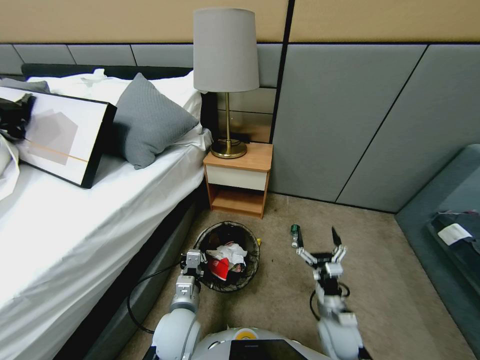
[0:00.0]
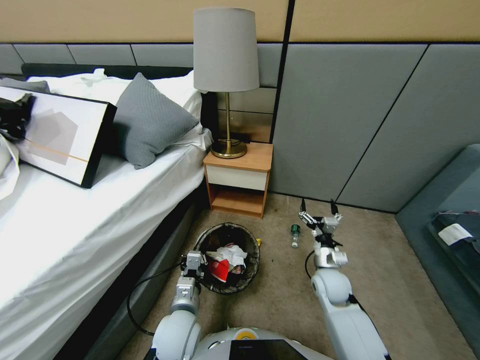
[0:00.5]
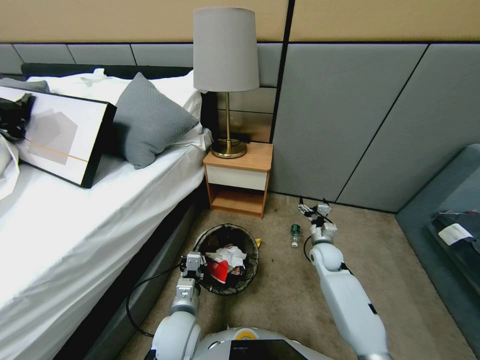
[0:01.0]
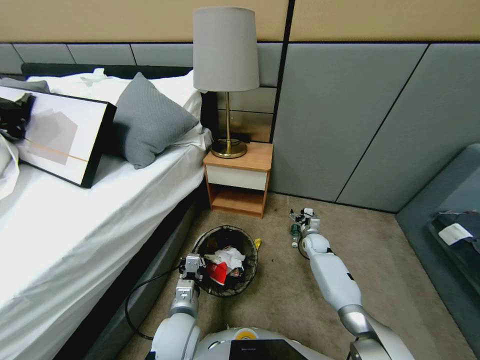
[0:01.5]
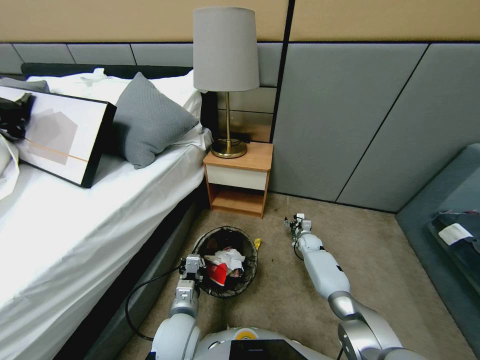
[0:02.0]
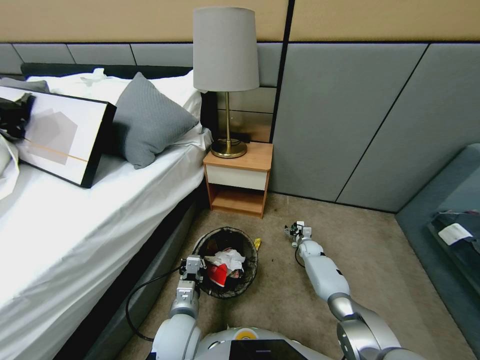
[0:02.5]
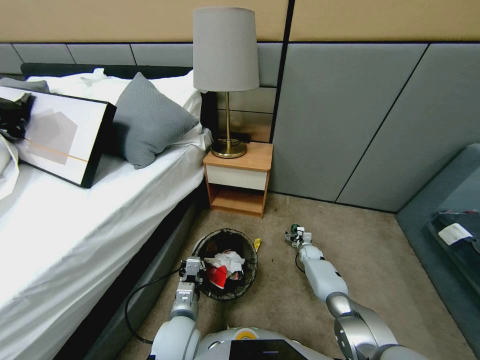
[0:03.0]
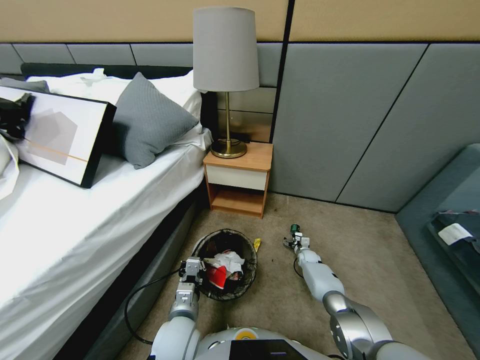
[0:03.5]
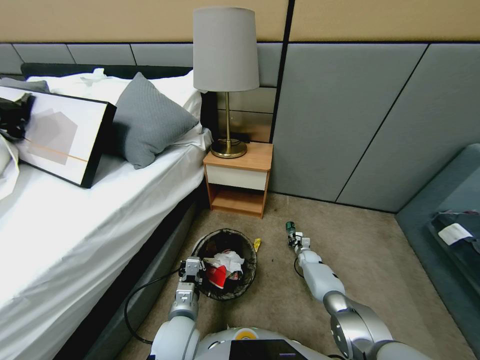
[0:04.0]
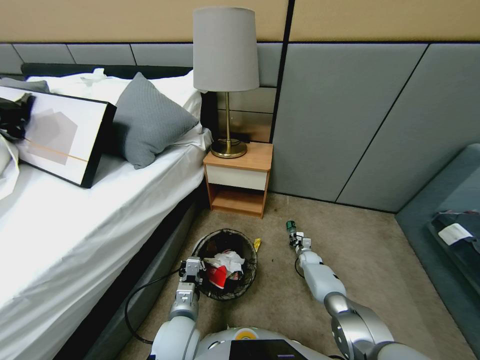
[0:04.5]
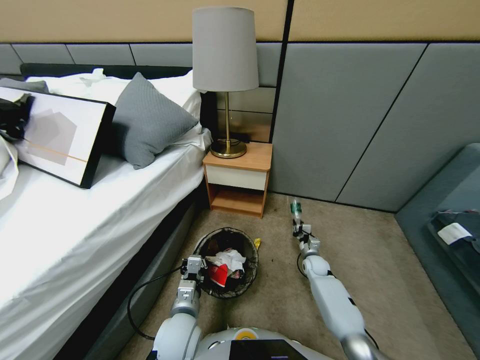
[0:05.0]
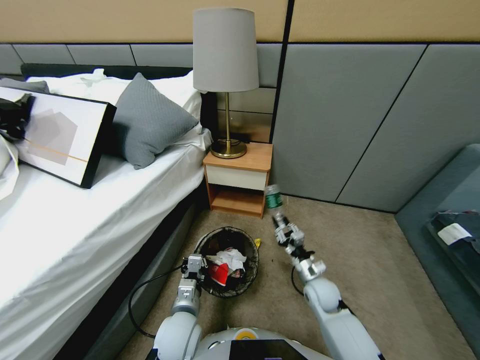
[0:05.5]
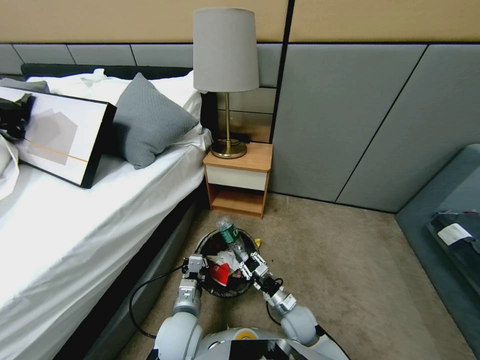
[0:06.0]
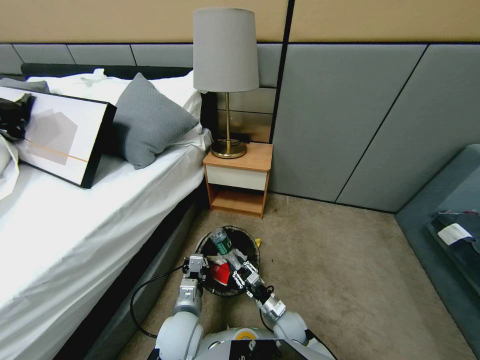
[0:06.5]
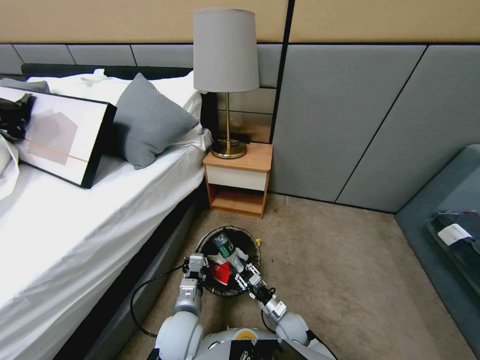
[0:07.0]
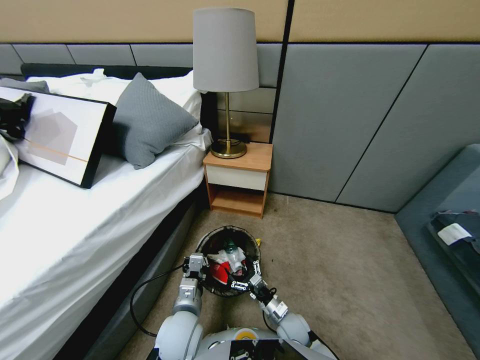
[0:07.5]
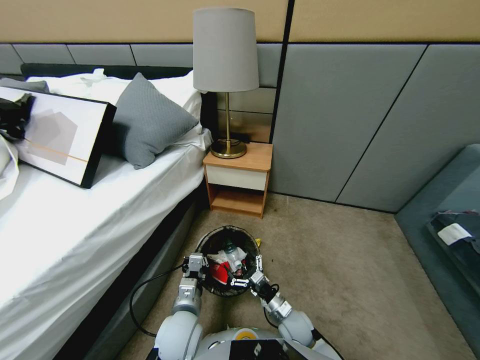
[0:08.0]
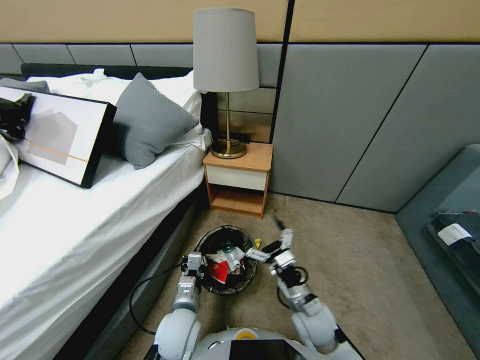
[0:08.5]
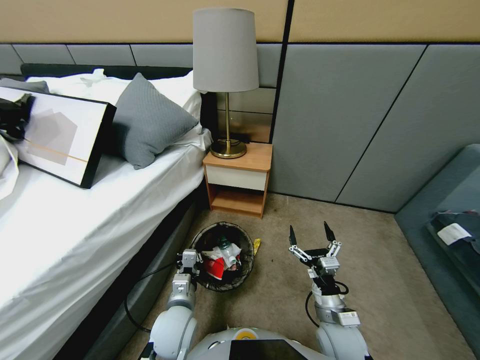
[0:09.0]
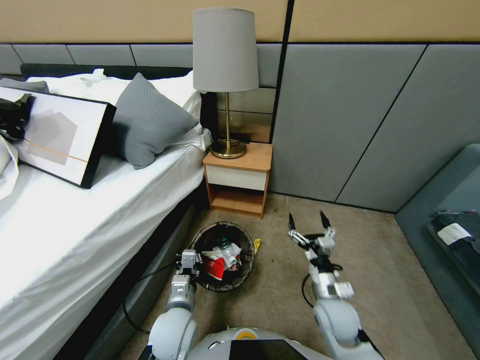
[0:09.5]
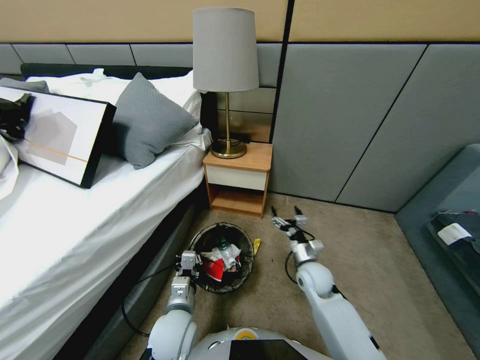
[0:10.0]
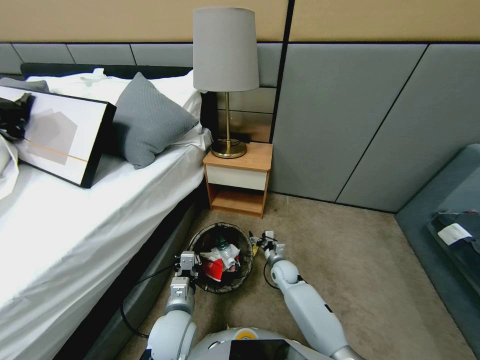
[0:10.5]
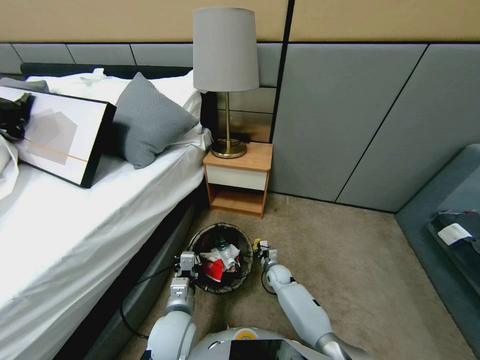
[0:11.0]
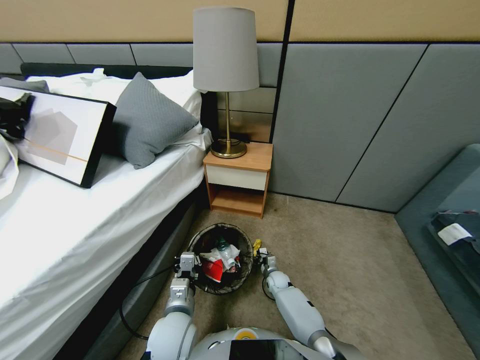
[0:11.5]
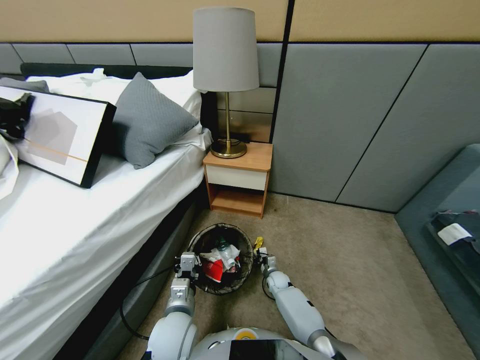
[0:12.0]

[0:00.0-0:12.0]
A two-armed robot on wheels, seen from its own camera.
Task of the whole recording: Pick up the trash bin, then pick up the garbage from the floor and place it into the trash bin.
0:00.0 to 0:02.0: The right gripper moves forward, about 30 cm.
0:02.0 to 0:04.0: The right gripper goes some 10 cm downward, and closes its fingers.
0:04.0 to 0:06.0: The right gripper heads backward, to the left and upward, covering roughly 35 cm.
0:06.0 to 0:08.0: The right gripper opens.
0:08.0 to 0:10.0: The right gripper heads forward, covering some 15 cm.
0:10.0 to 0:12.0: The right gripper is displaced downward by approximately 20 cm, and closes its fingers.

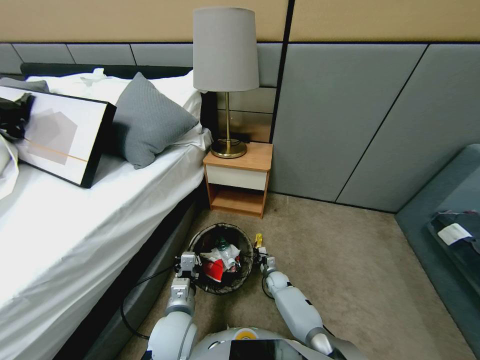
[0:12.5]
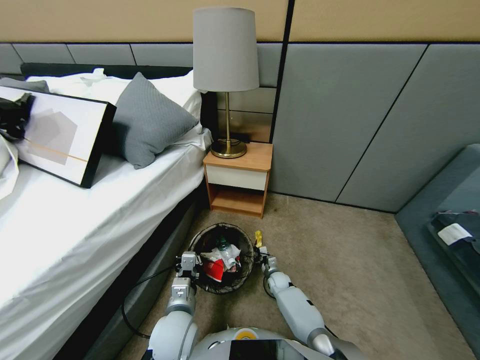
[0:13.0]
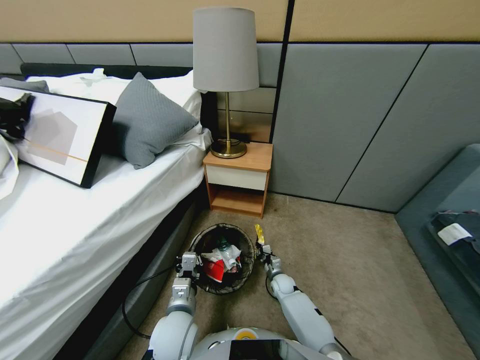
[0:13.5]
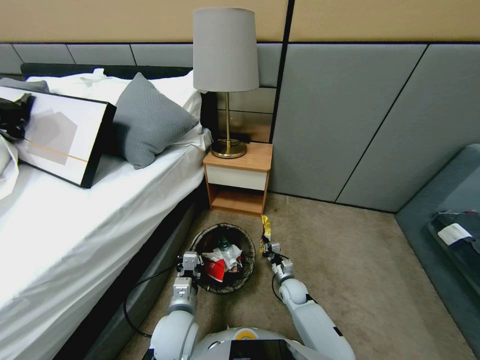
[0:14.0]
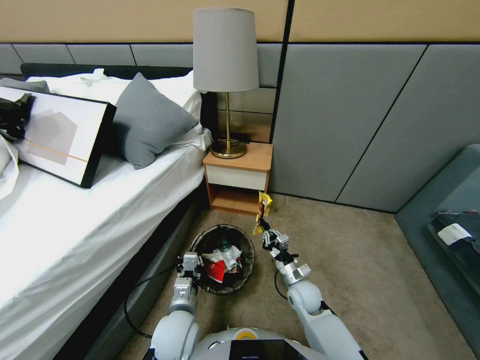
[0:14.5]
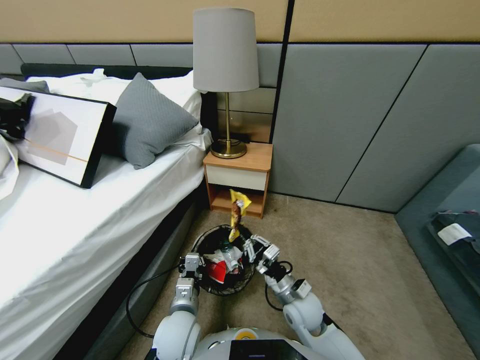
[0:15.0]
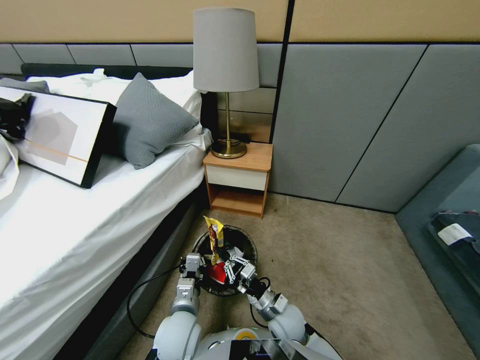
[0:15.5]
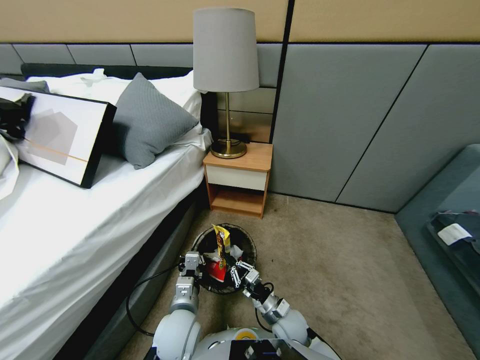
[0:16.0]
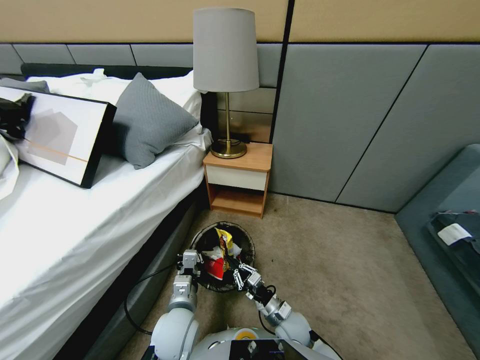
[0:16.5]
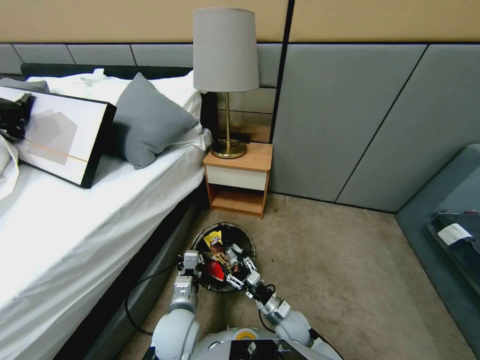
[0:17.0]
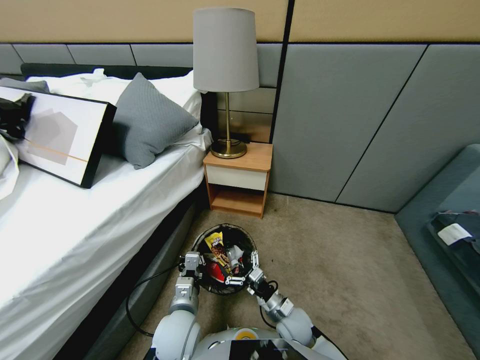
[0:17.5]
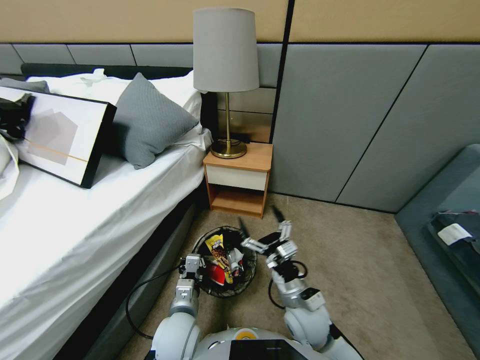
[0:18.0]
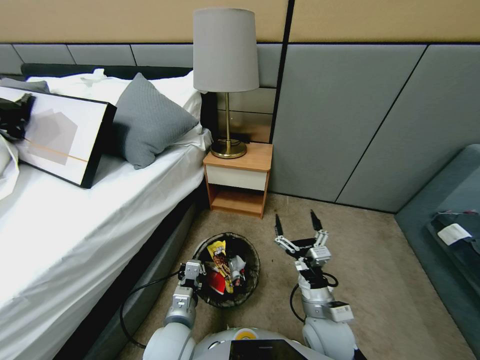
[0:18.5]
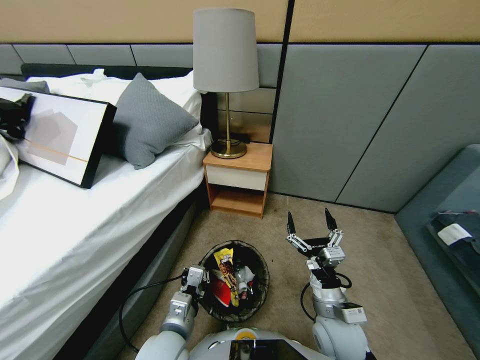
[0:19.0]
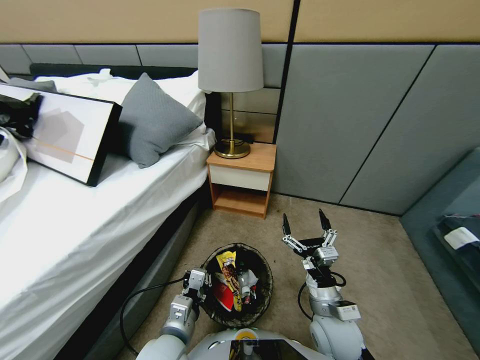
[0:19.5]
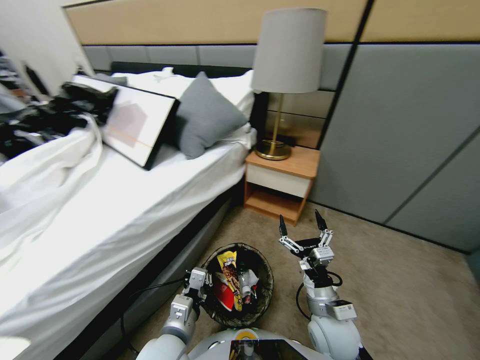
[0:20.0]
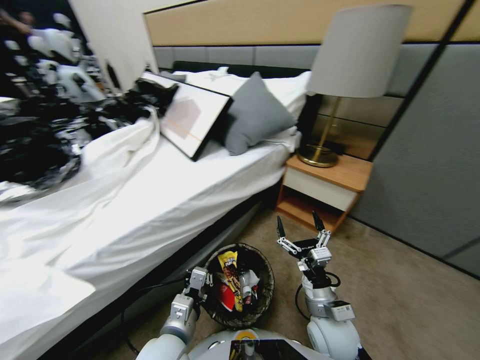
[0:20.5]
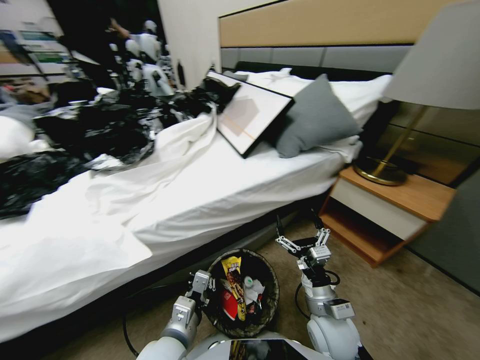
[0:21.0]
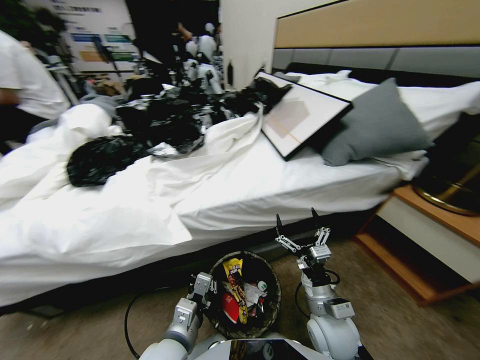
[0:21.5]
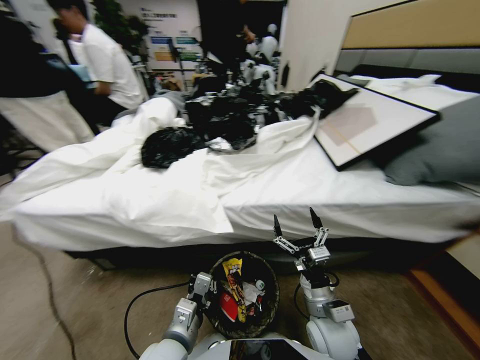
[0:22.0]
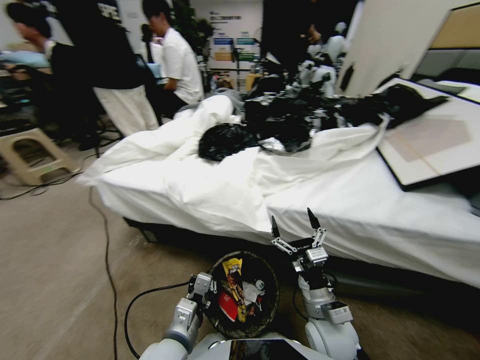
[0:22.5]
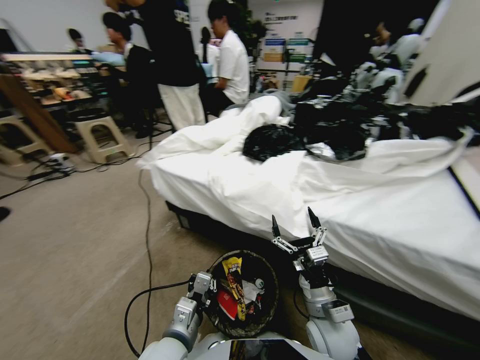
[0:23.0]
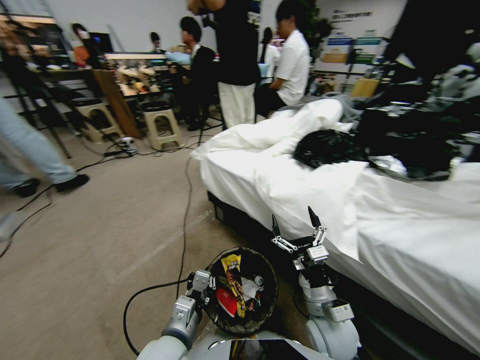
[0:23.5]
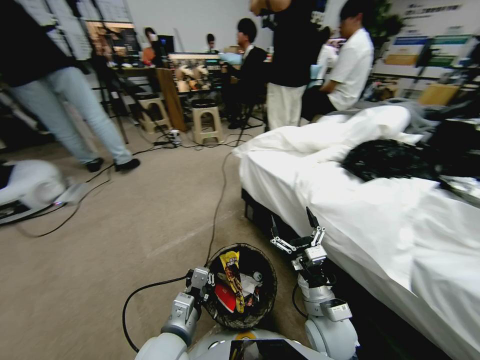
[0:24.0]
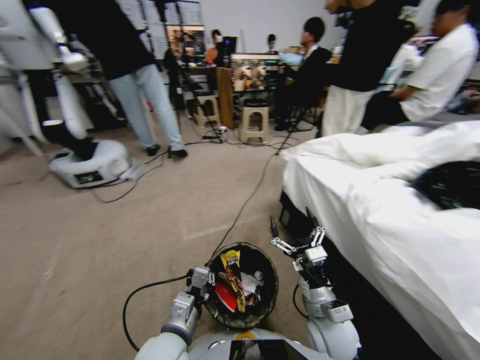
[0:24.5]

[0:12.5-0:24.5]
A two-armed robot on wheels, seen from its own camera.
Task of the whole recording: Pick up the trash bin, then pick up the garbage from the floor and place it into the trash bin.
0:12.5 to 0:14.5: The right gripper heads upward and backward, covering about 20 cm.
0:14.5 to 0:16.5: The right gripper goes roughly 10 cm backward and downward.
0:16.5 to 0:18.5: The right gripper shifts approximately 15 cm upward, and opens up.

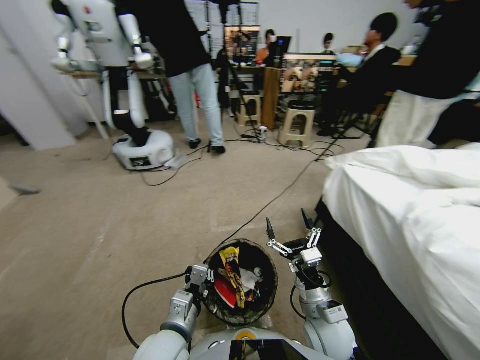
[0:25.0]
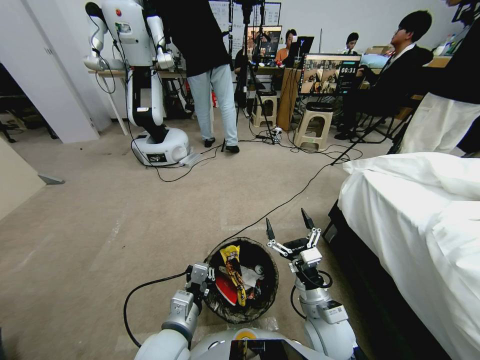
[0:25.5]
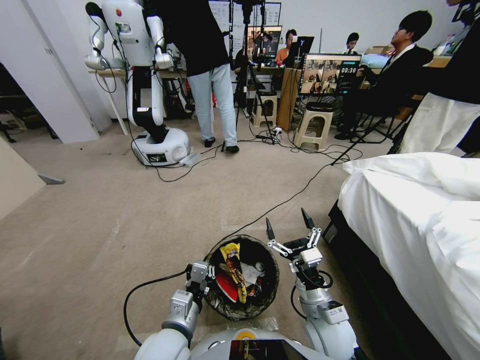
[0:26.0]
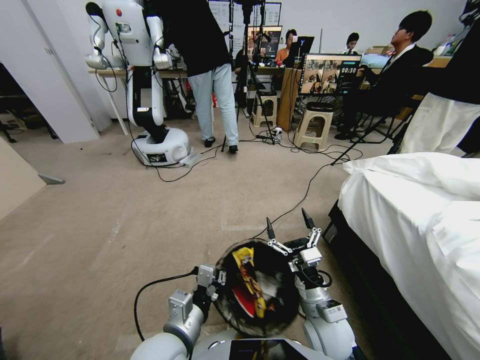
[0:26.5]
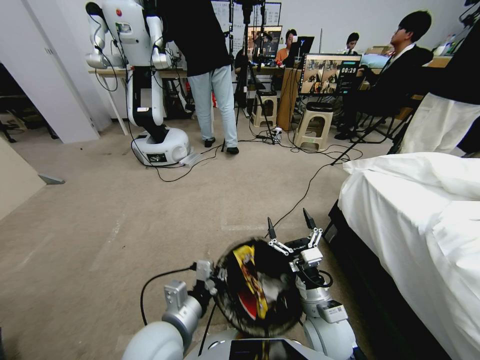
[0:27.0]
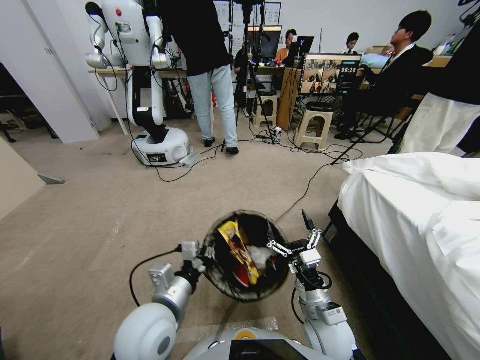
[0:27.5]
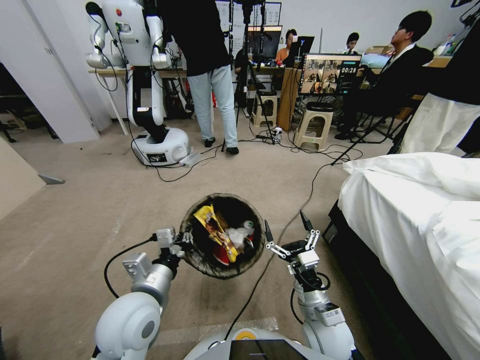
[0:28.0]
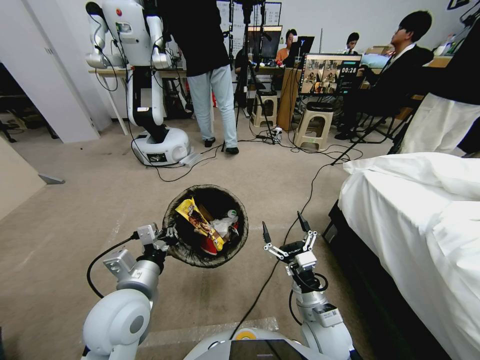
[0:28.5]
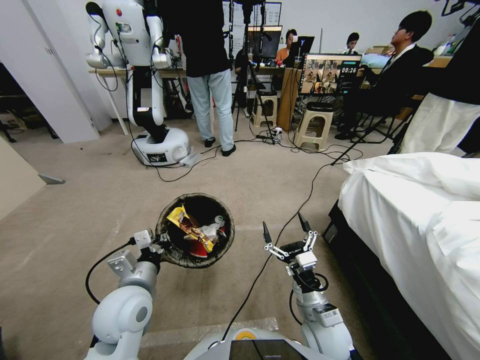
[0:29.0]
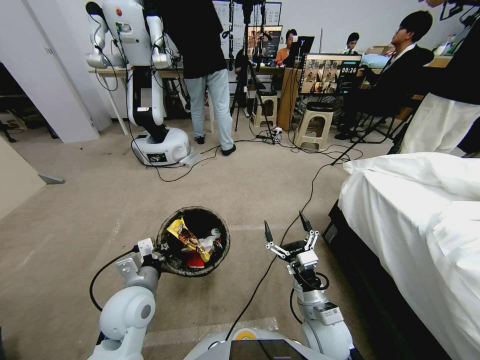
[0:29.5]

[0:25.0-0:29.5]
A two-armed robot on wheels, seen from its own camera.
Task of the whole recording: Pick up the trash bin, then pick up the garbage from the floor and place it into the trash bin.
0:27.0 to 0:29.5: The left gripper moves to the left and forward, some 10 cm.
